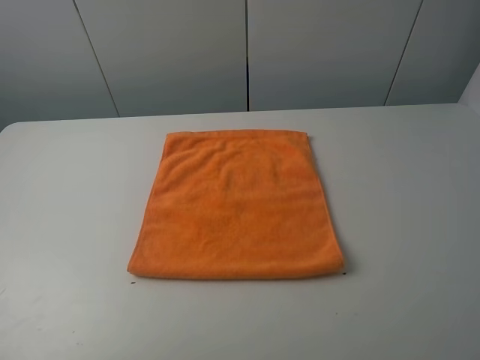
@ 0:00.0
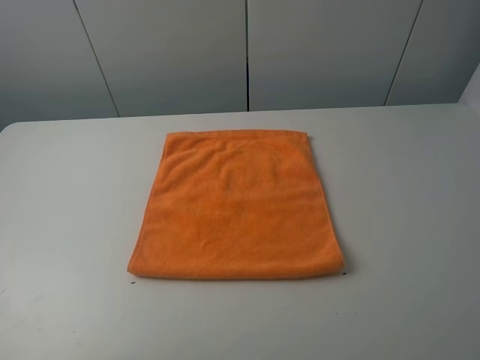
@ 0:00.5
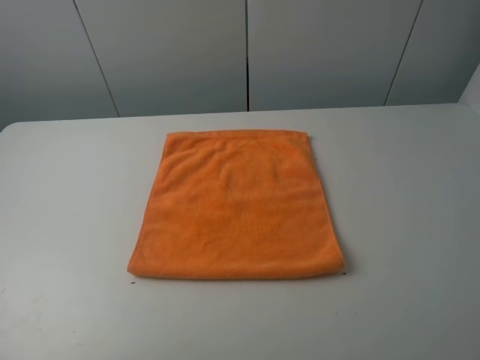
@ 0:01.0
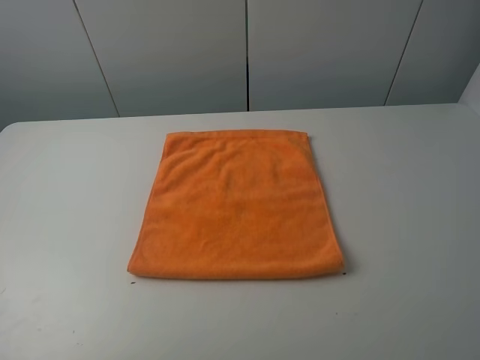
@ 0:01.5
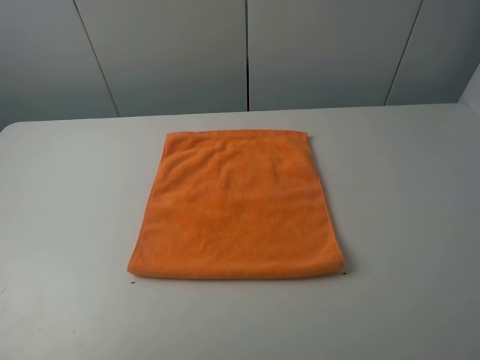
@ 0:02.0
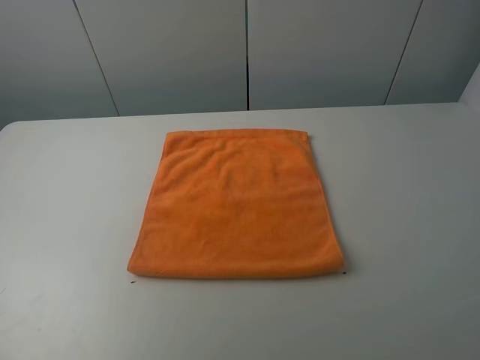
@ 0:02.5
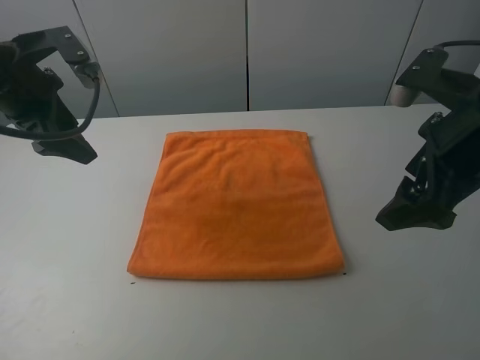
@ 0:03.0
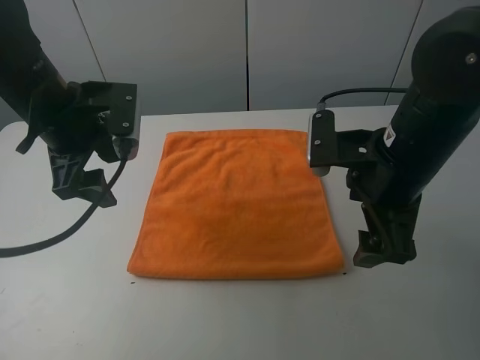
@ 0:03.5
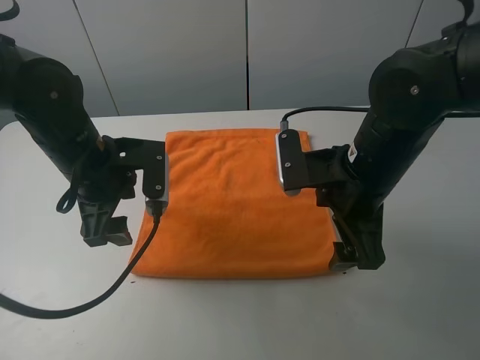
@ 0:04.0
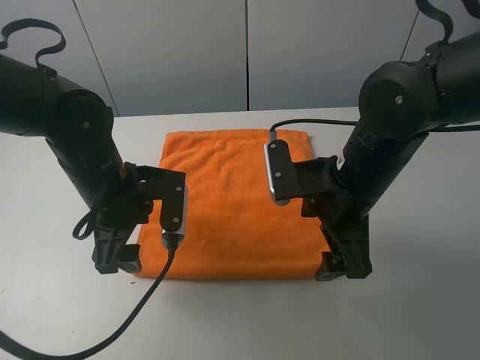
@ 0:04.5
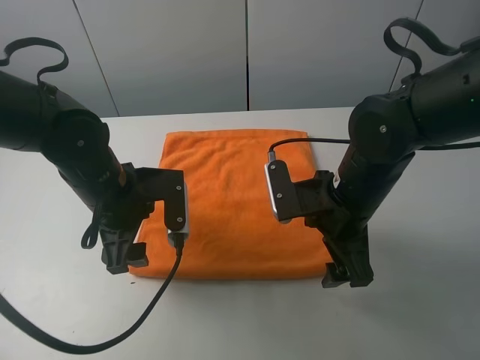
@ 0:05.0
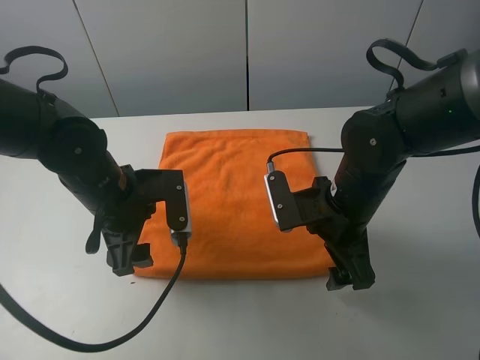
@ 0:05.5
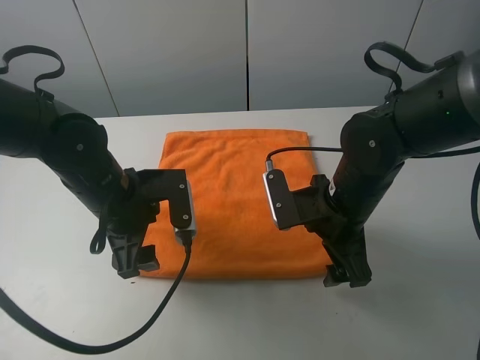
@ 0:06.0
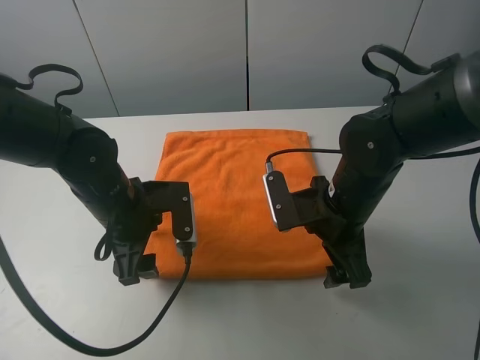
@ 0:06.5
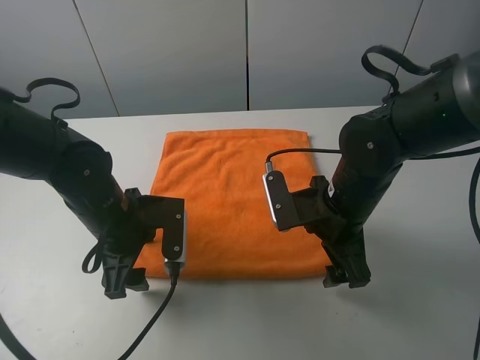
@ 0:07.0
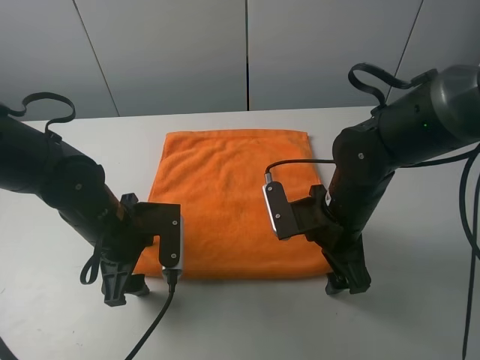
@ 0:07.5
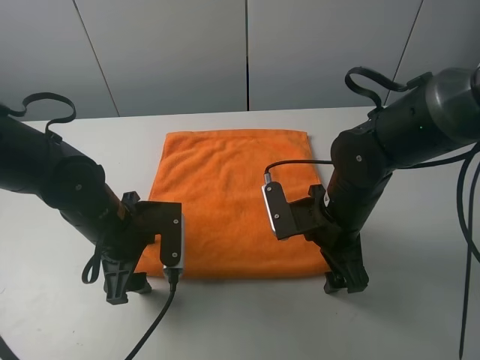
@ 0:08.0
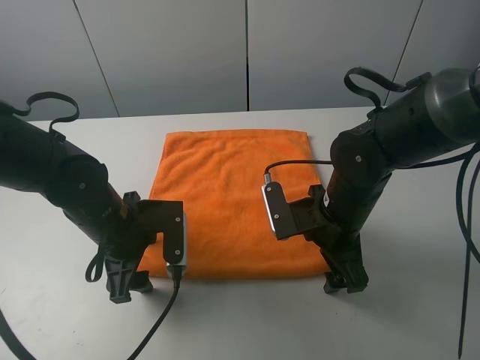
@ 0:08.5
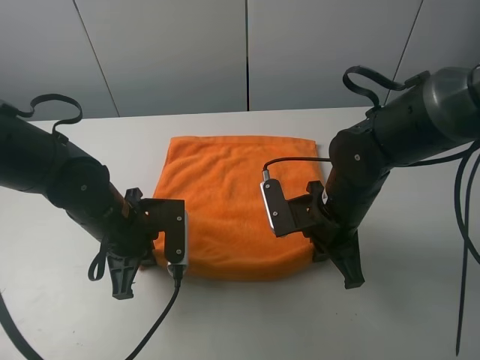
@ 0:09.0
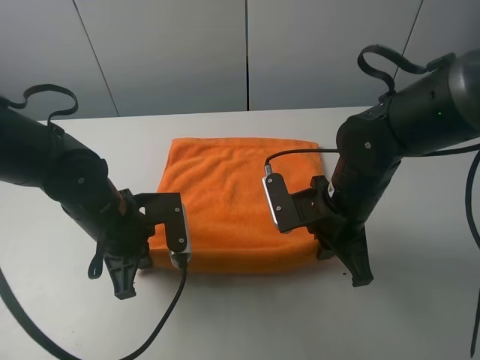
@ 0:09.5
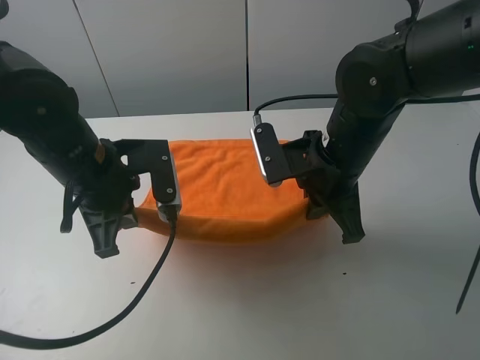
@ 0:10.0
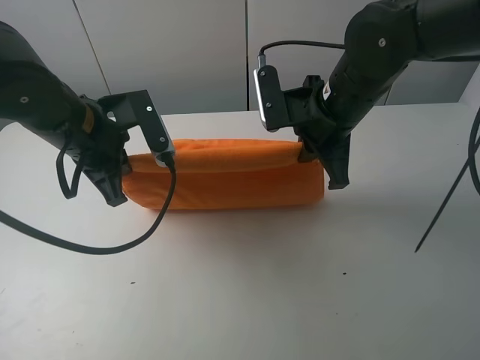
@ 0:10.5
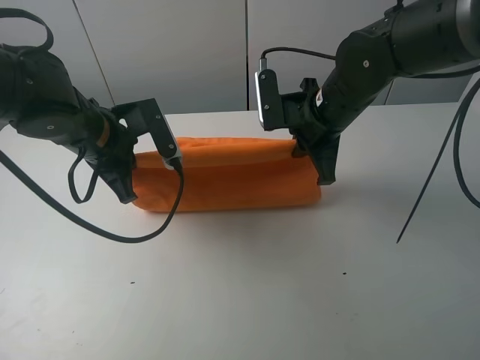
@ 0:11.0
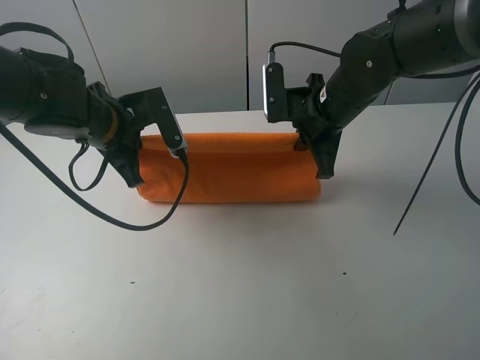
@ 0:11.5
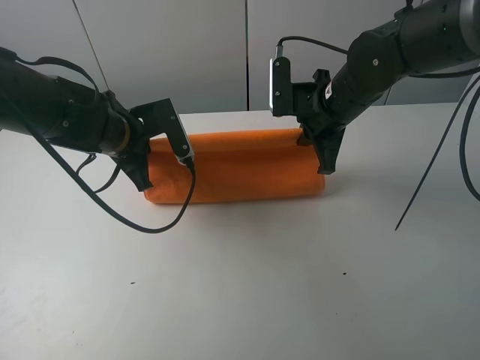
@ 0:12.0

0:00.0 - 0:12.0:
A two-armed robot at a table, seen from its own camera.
Task of the whole recording: fold the towels on the table.
Step, 0:00.0 - 0:09.0: Grasp the orange towel with the left gripper.
0:02.0 - 0:04.0: The right gripper is displaced forward, to the left and downward by about 30 cm; the left gripper goes about 30 cm forward, downward and to the right.
0:04.0 - 0:06.0: The right gripper travels downward by roughly 5 cm.
0:08.0 - 0:10.0: The two grippers go about 10 cm upward. The right gripper closes its fingers, while the left gripper closes its fingers.
0:10.0 - 0:12.0: The grippers both shift forward by some 10 cm.

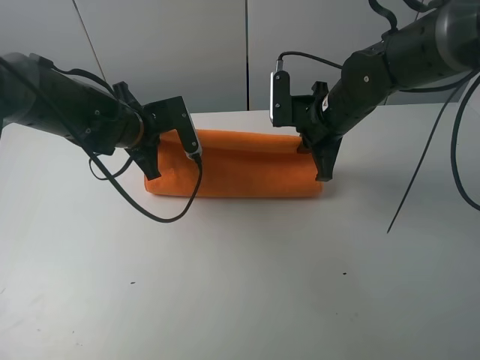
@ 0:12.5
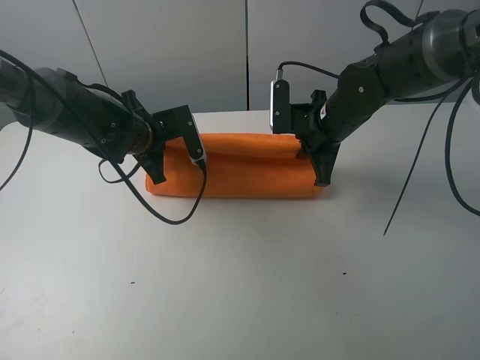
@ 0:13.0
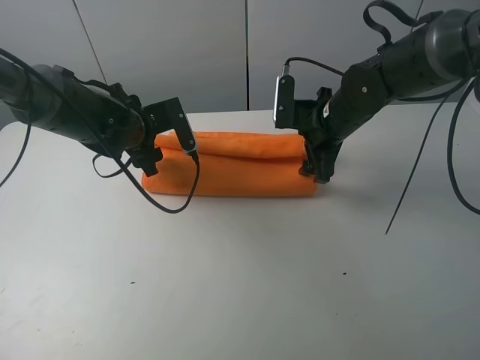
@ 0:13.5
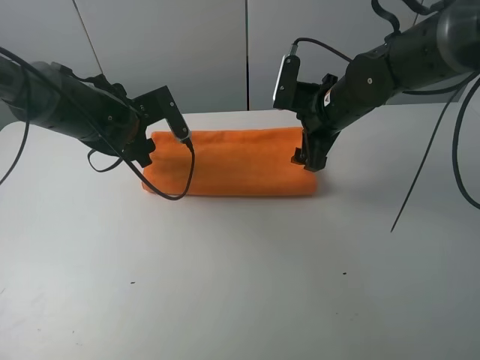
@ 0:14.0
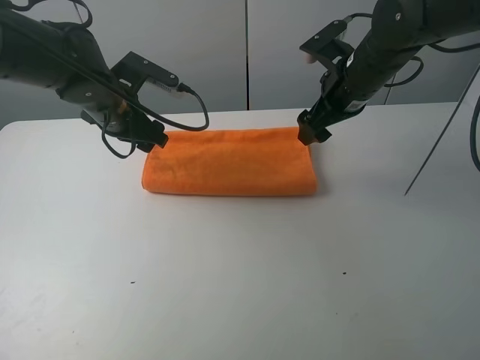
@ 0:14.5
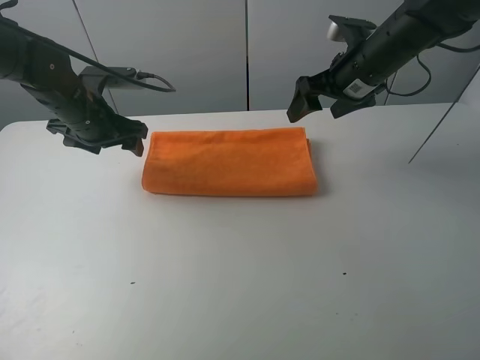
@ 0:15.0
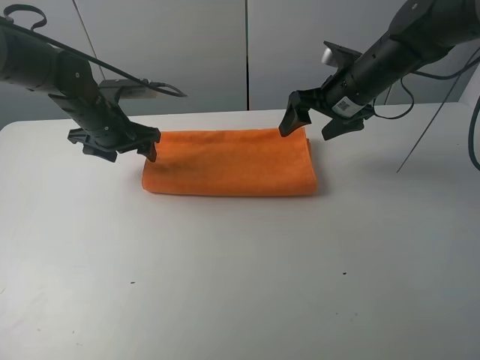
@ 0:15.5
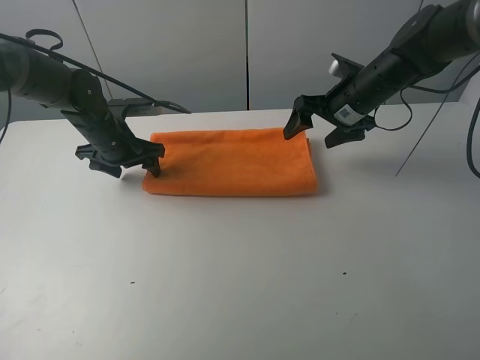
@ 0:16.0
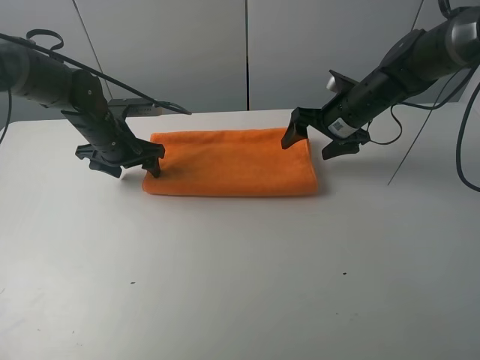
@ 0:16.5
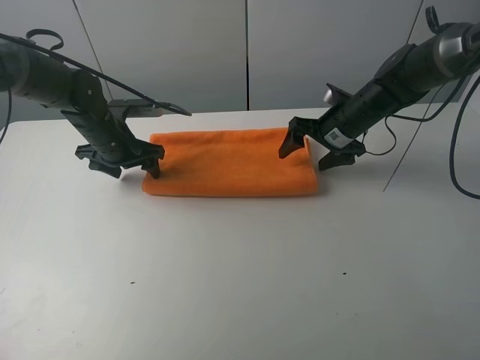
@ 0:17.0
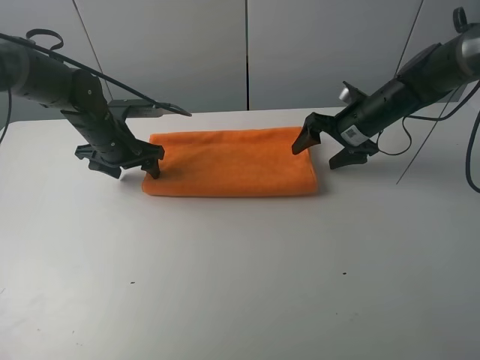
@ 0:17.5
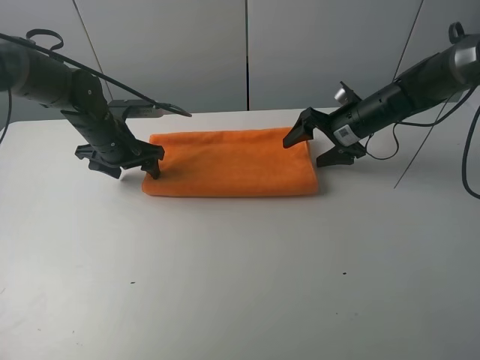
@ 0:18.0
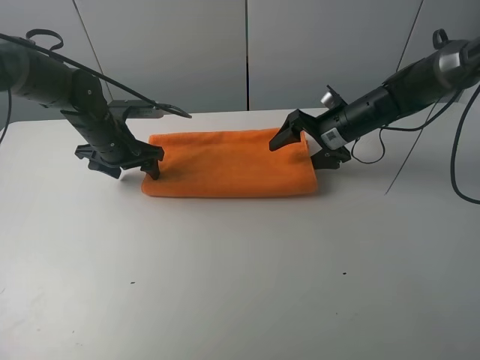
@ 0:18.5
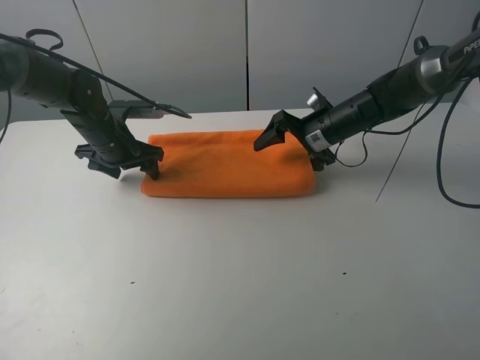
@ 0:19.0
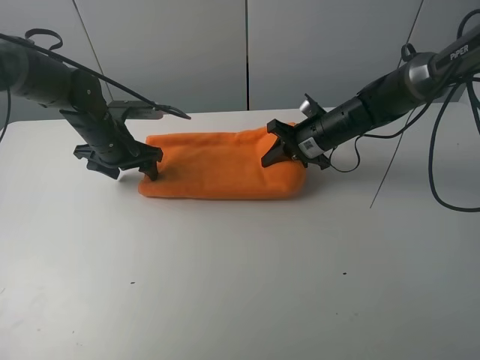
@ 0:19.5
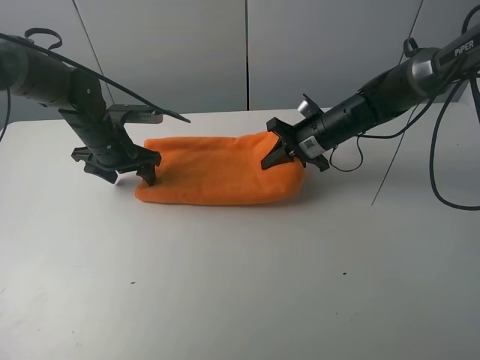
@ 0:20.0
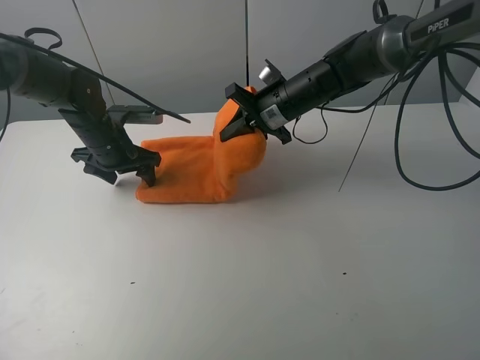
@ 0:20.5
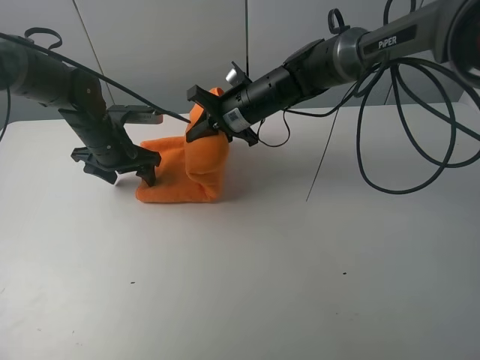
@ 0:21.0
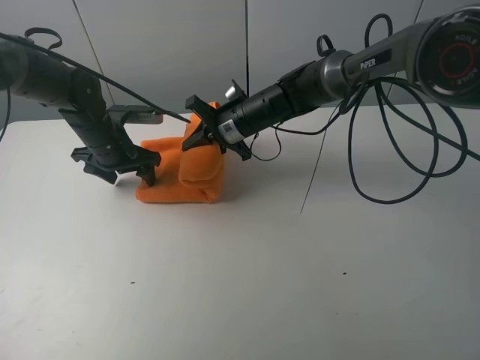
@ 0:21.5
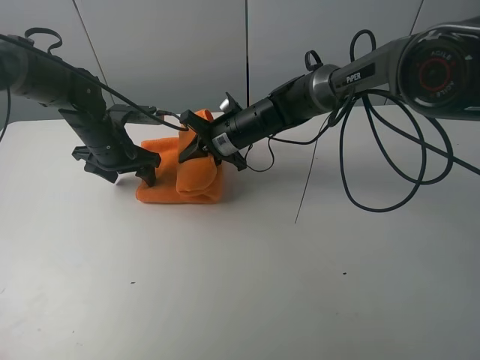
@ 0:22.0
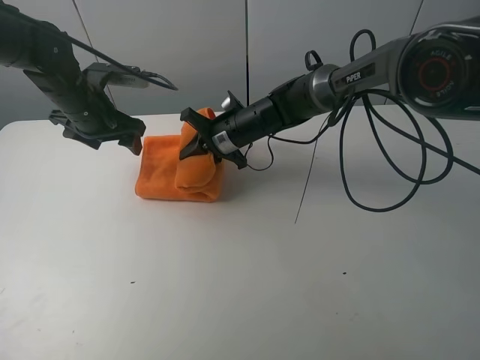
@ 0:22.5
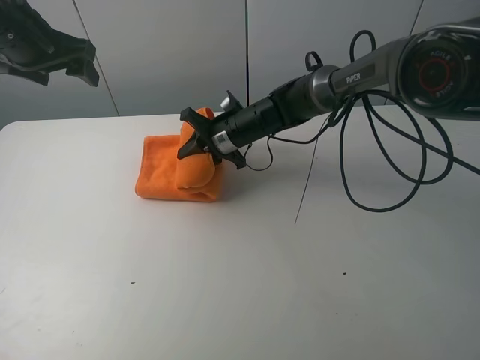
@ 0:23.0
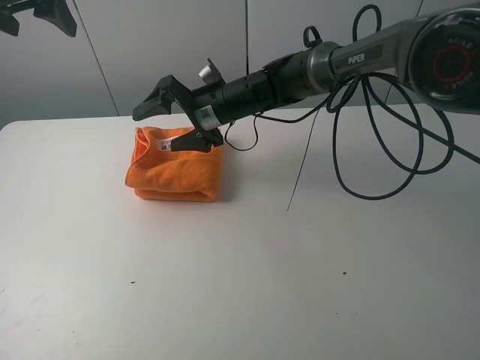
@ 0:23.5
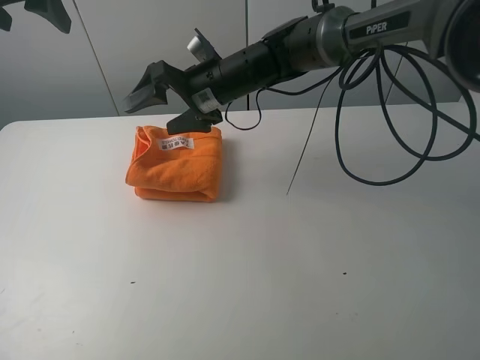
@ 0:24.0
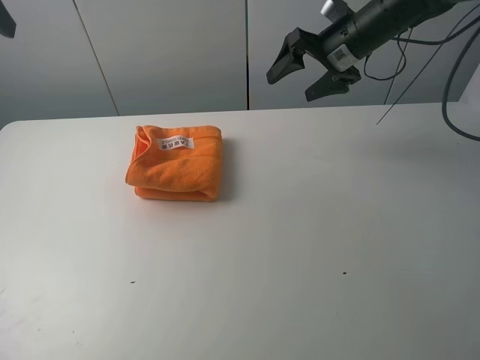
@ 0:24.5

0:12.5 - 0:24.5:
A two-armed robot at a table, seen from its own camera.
Task of the whole recording: fold the towels on the table.
Step, 0:14.5 - 0:16.0: Press on the orange towel with the left gripper.
Step, 0:16.5 - 0:24.0: Fold the orange towel from right to left with right gripper.
0:12.5 - 0:14.5: The right gripper moves upward, about 5 cm, and opens its fingers, while the left gripper opens up.
0:14.5 - 0:16.5: Both grippers travel together downward, about 10 cm.
0:16.5 - 0:18.5: There are only small adjustments of the grippers.
0:18.5 - 0:20.5: The right gripper moves to the left, roughly 10 cm, and closes up.
0:20.5 - 0:22.5: The right gripper travels to the left and downward by about 10 cm. The left gripper heads upward, covering approximately 5 cm.
0:22.5 - 0:24.5: The left gripper travels upward and backward by about 25 cm, while the right gripper travels to the right and upward by roughly 25 cm, and opens its fingers.

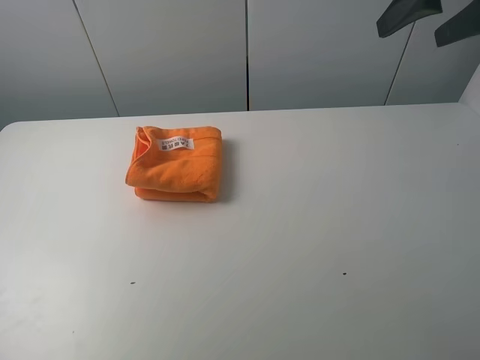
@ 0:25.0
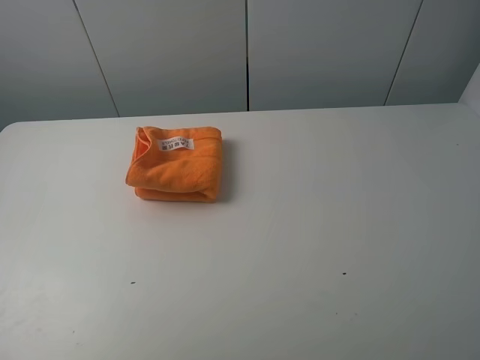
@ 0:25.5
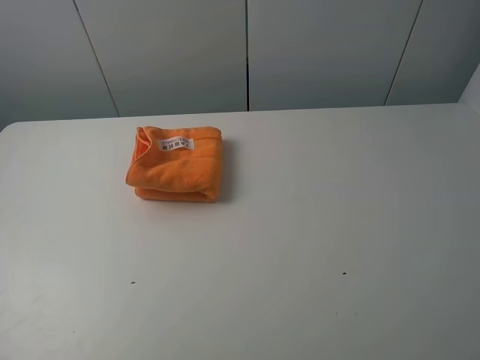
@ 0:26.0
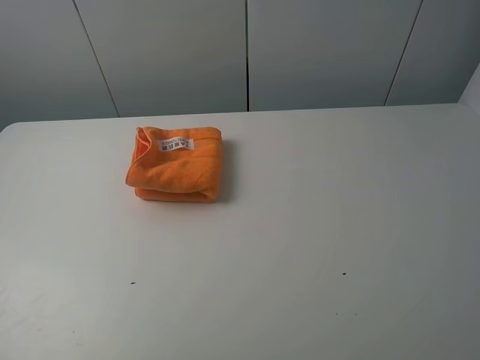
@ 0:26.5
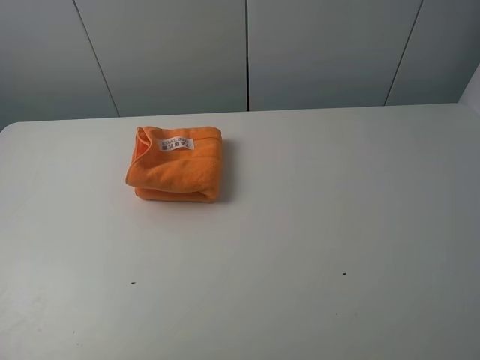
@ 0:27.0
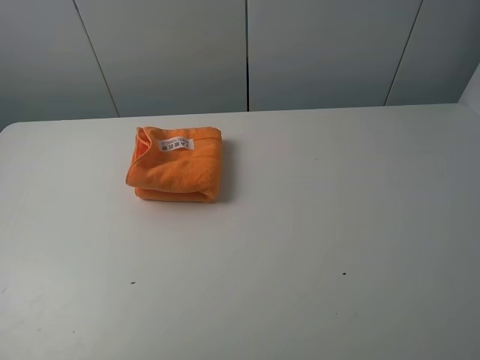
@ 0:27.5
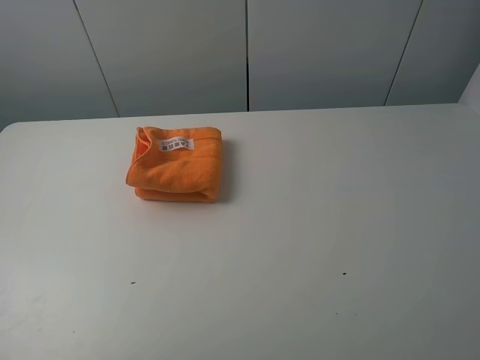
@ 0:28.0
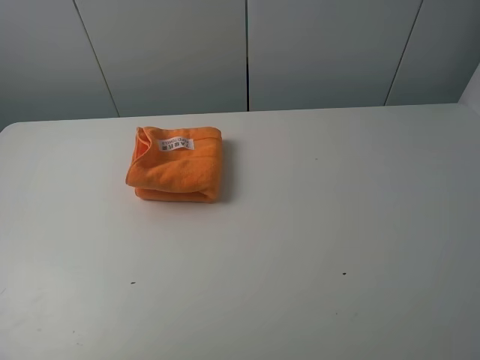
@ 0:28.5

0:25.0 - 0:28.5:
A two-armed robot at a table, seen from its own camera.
Task of the whole recording: fold the towels on the table.
0:25.0 - 0:27.0: The right gripper heads backward, covering some 30 cm, while the left gripper moves backward and downward, approximately 20 cm.
